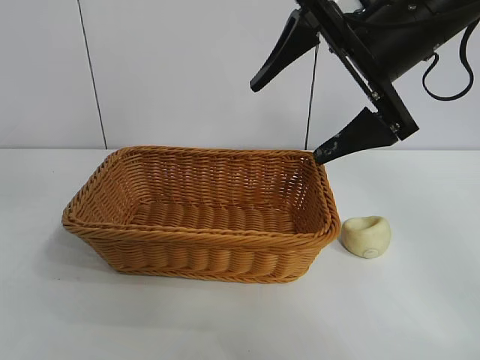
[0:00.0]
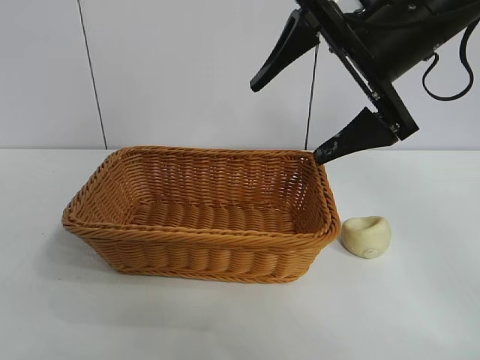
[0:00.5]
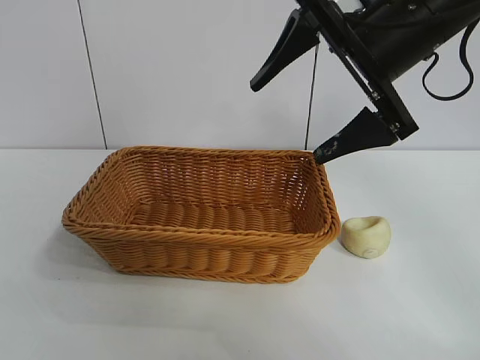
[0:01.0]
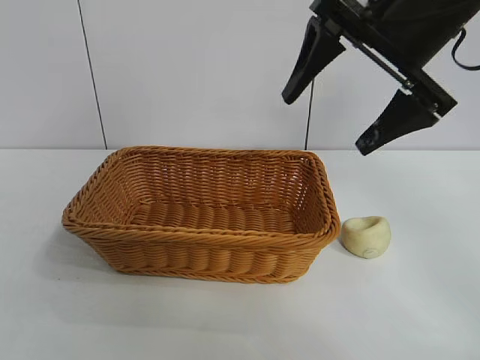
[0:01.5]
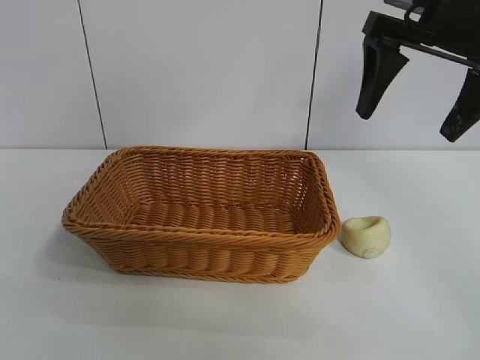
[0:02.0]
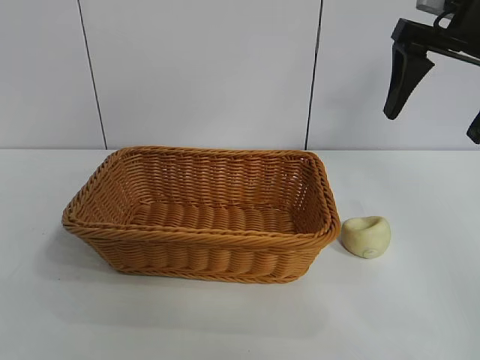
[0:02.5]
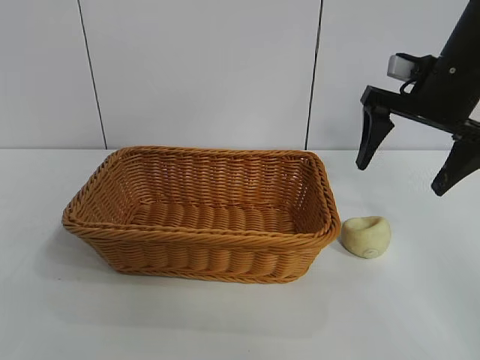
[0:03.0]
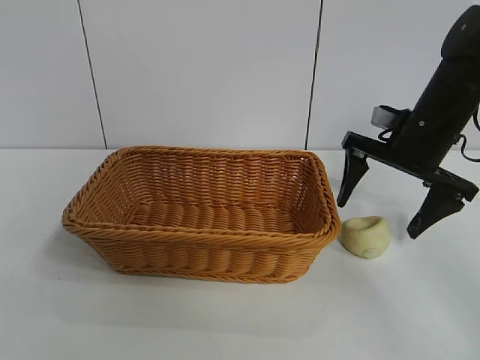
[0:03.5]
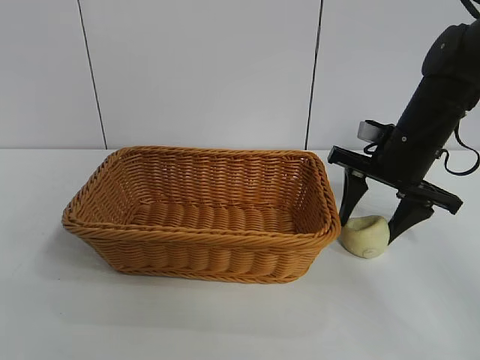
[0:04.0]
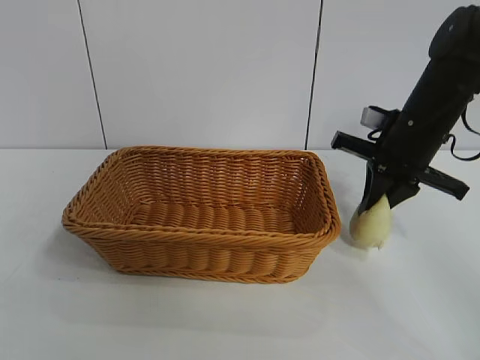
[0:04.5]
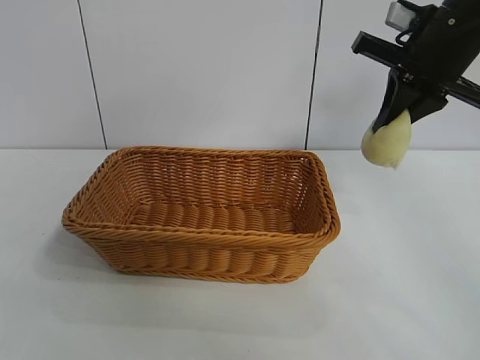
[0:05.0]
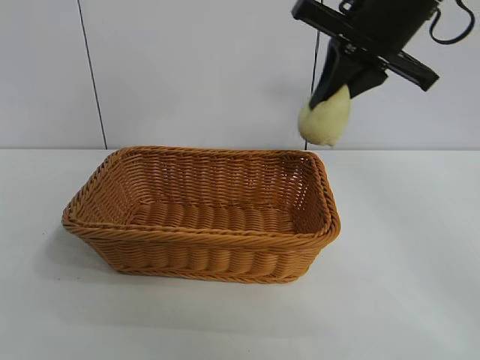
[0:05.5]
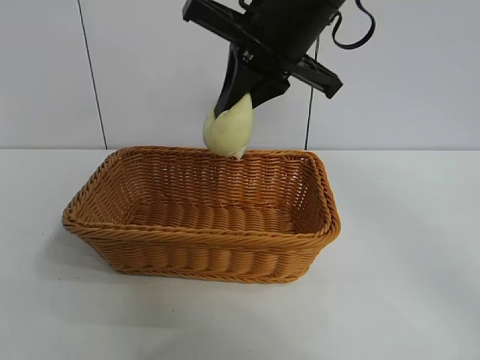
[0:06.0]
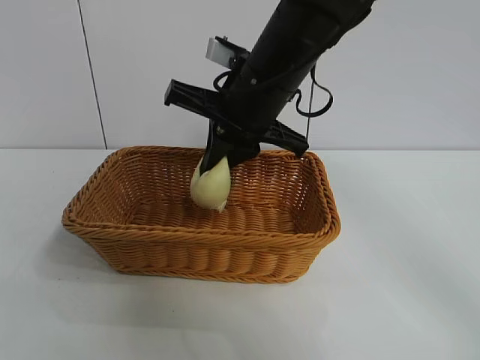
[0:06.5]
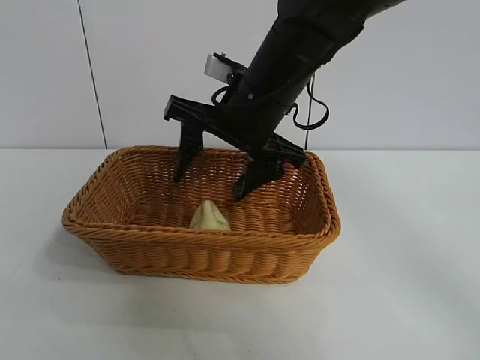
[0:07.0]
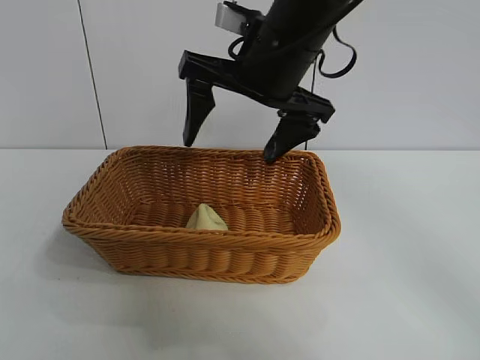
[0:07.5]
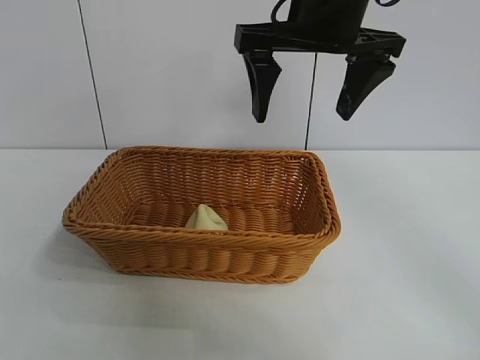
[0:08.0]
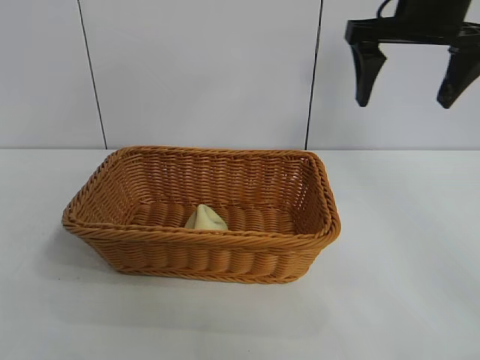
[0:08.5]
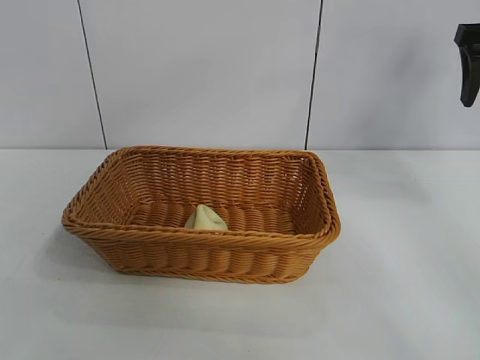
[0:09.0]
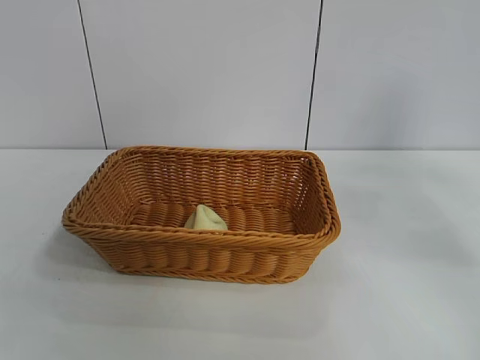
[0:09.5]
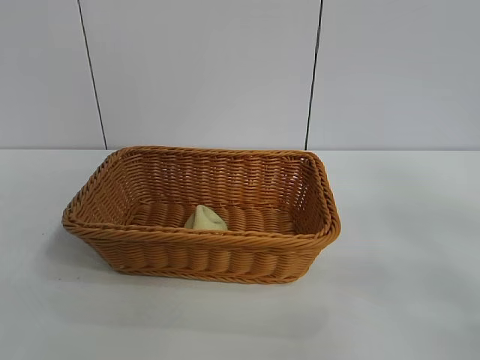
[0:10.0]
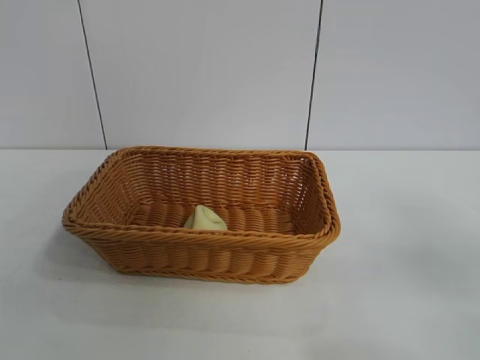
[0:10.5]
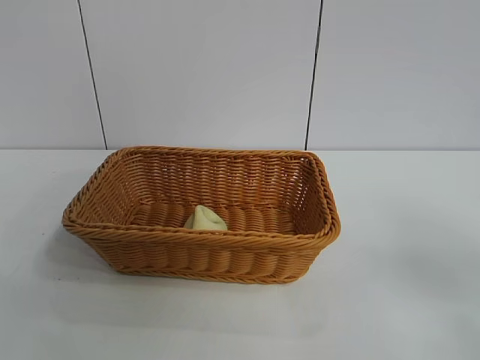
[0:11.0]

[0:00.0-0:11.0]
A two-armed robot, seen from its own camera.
Task of the whole recording: pick up the egg yolk pastry and put it into the basket.
Step, 0:00.0 to 0:04.0: Grasp egg yolk pastry with right gripper.
Step, 0:04.5 to 0:07.0: Place the egg yolk pastry in the basket with right gripper.
